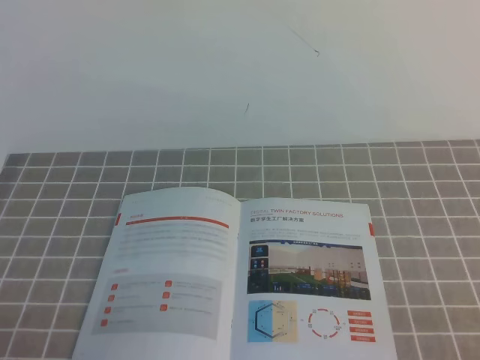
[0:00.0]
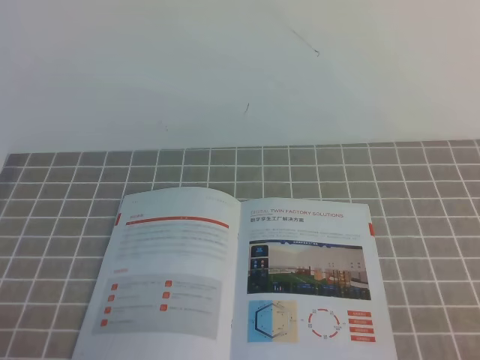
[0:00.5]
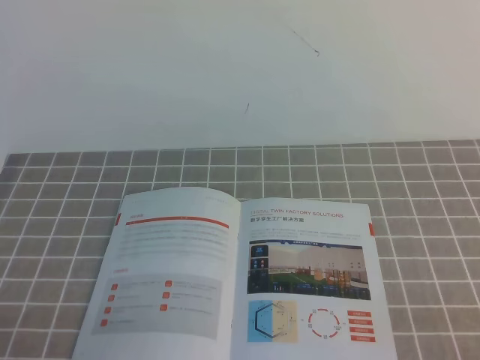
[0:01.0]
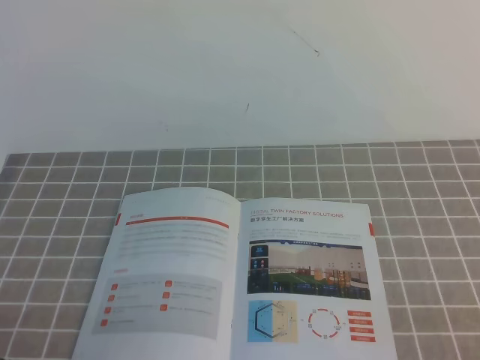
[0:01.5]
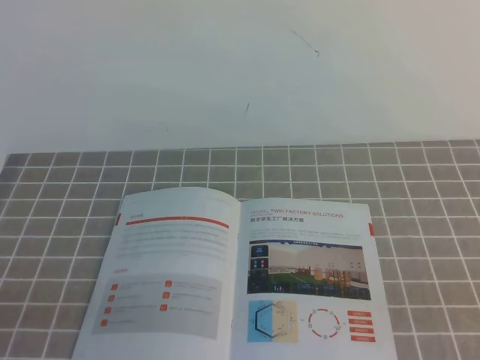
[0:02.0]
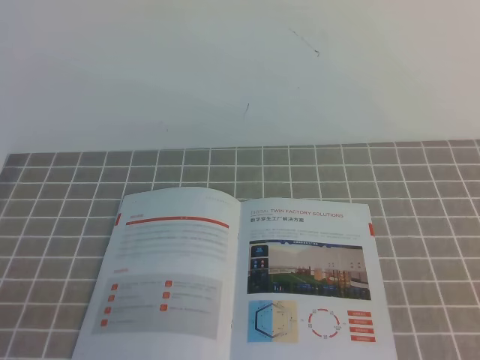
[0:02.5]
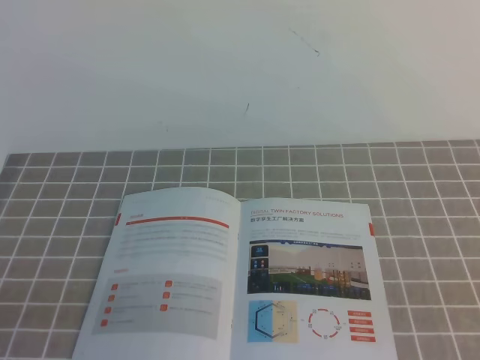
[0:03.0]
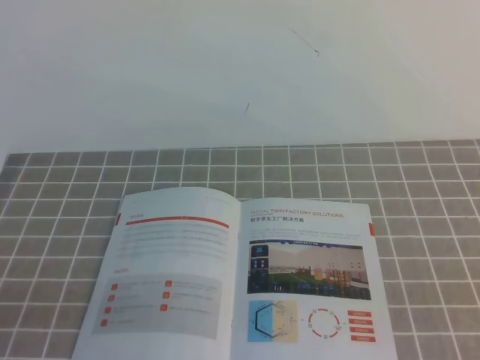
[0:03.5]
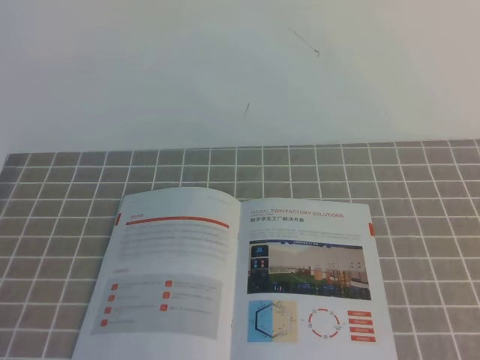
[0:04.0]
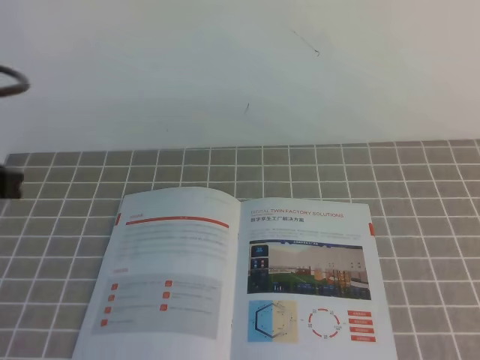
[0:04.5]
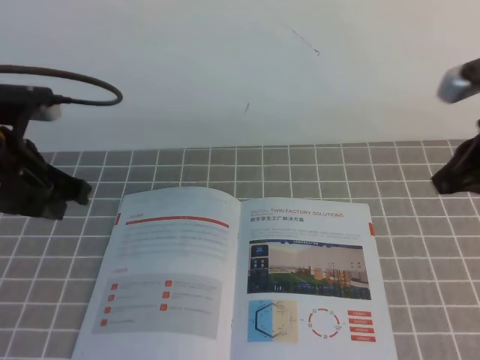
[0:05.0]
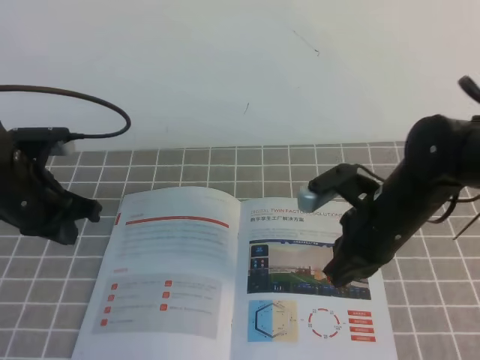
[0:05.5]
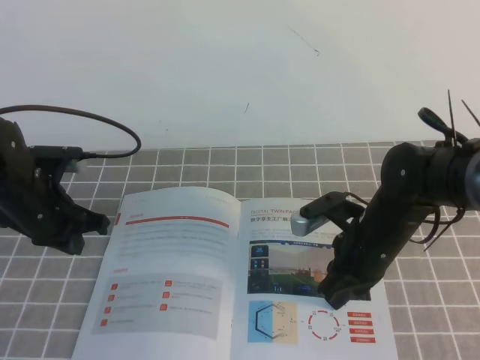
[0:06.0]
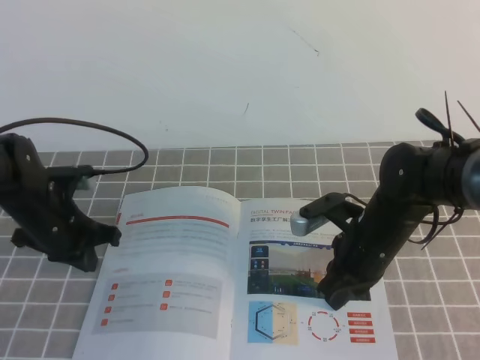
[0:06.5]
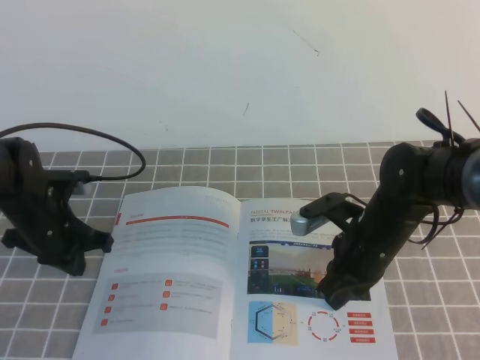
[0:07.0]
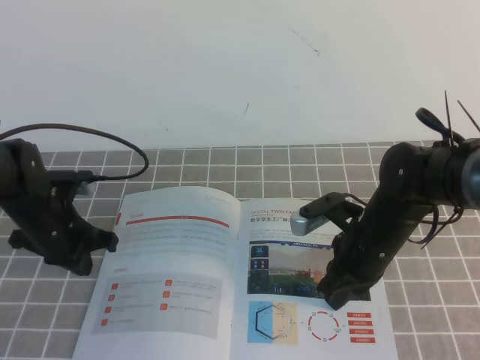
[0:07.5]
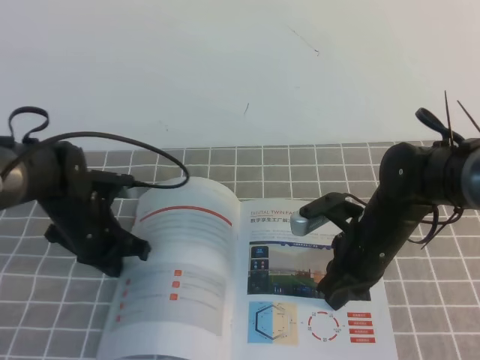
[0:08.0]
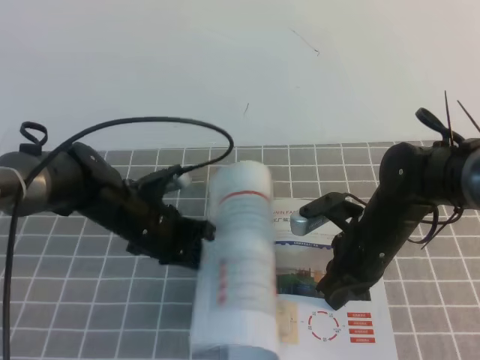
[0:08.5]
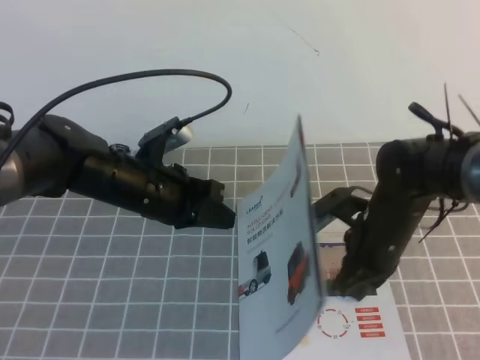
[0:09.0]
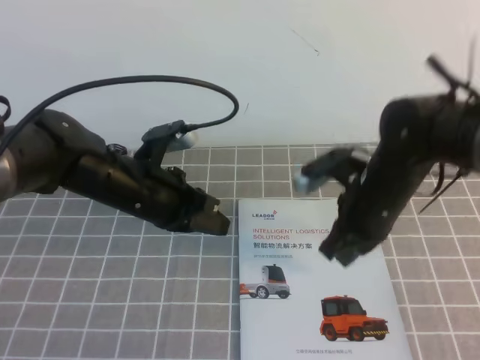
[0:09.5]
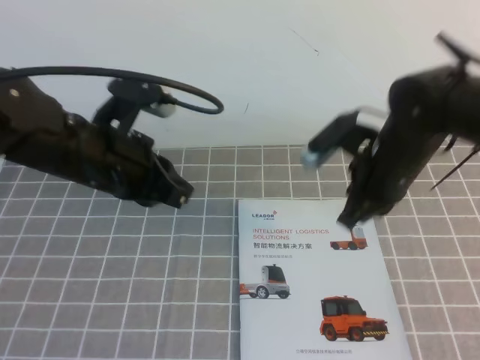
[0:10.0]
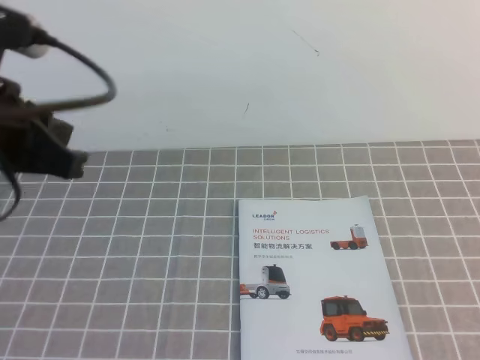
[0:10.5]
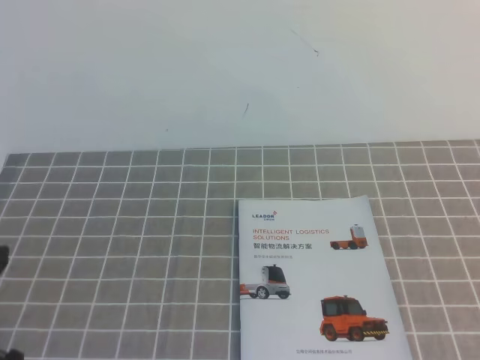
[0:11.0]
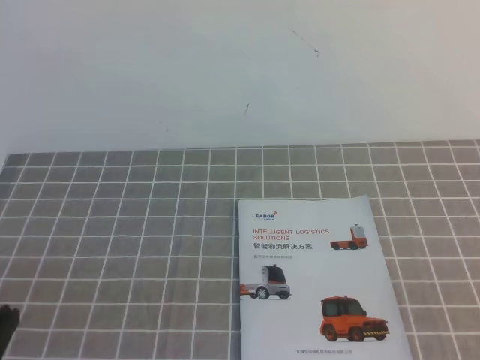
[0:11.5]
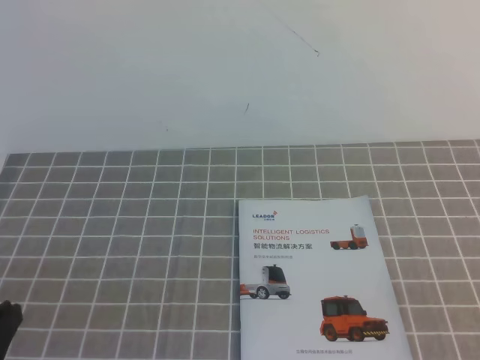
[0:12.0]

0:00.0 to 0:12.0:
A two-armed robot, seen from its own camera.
Task of the whole recording: on the grey tablecloth, hold the book with one hand and close it with the other.
0:04.0 to 0:06.0: The left gripper heads forward and downward, covering approximately 35 cm, while the right gripper goes about 40 cm forward, downward and to the left.
0:06.0 to 0:08.0: The left gripper shifts by some 5 cm.
0:08.0 to 0:10.0: The right gripper shifts some 10 cm upward; the left gripper travels upward by approximately 15 cm.
0:10.0 to 0:12.0: The left gripper travels backward by about 25 cm. The right gripper goes roughly 40 cm backward and to the right.

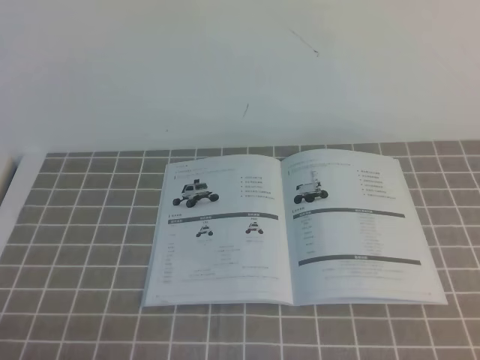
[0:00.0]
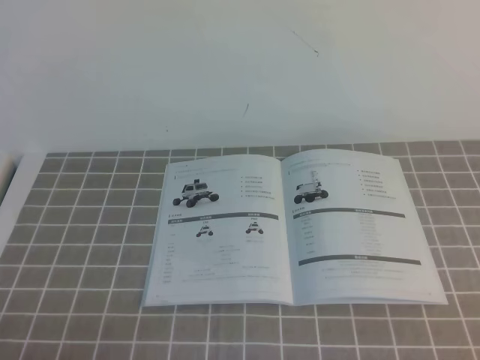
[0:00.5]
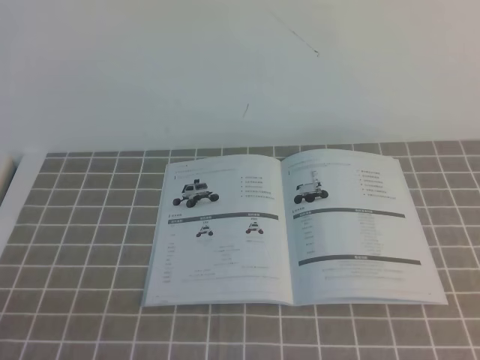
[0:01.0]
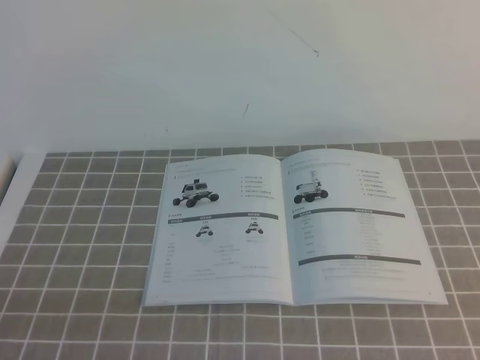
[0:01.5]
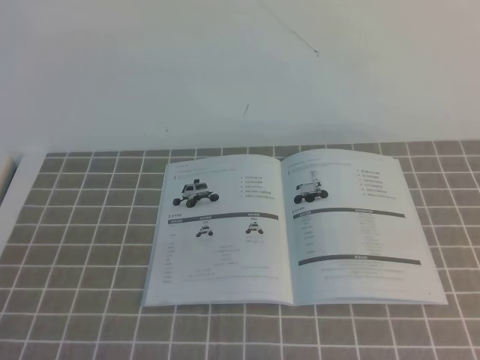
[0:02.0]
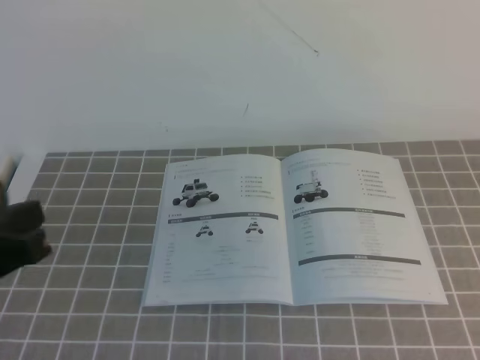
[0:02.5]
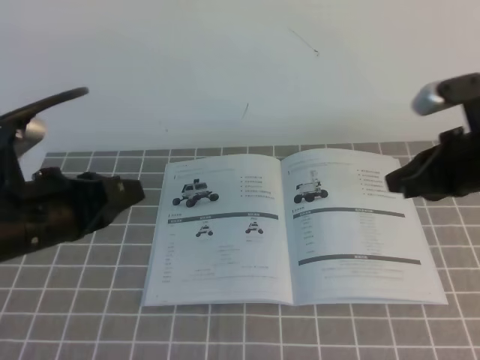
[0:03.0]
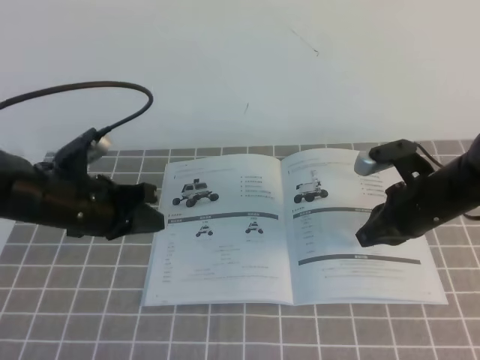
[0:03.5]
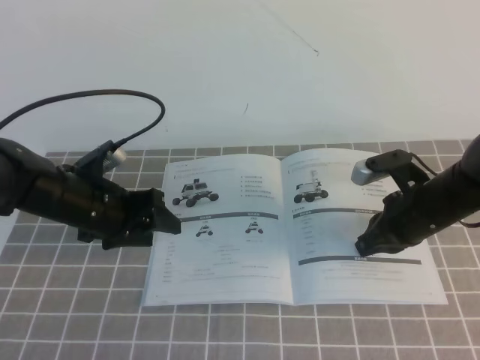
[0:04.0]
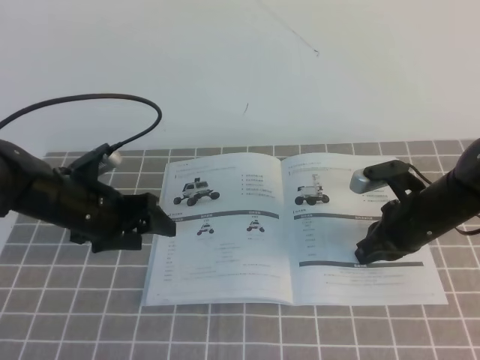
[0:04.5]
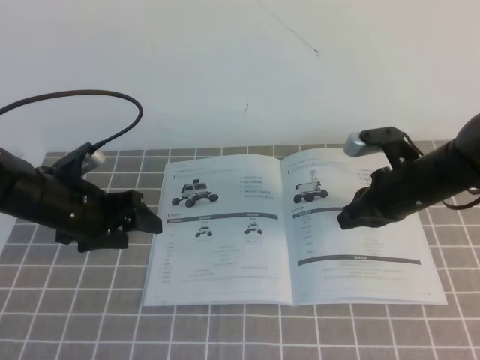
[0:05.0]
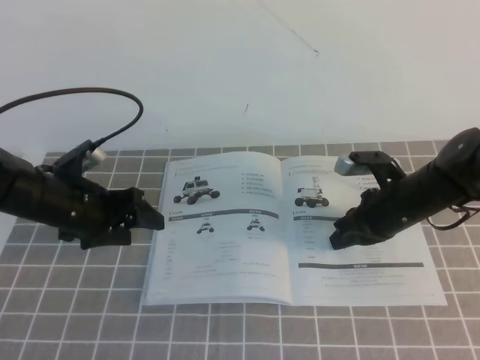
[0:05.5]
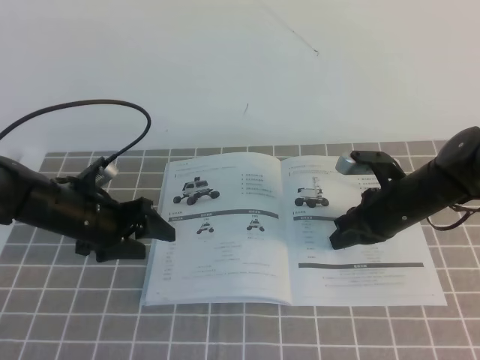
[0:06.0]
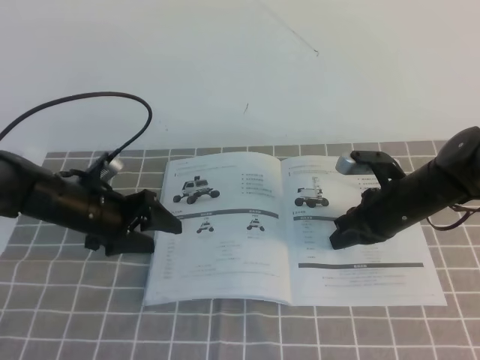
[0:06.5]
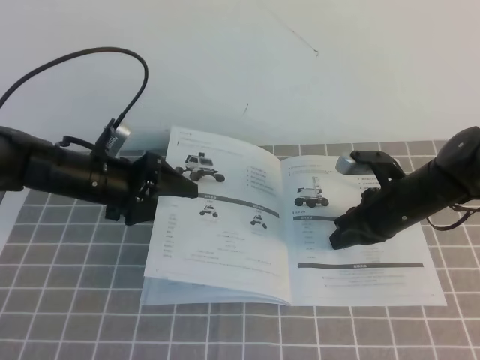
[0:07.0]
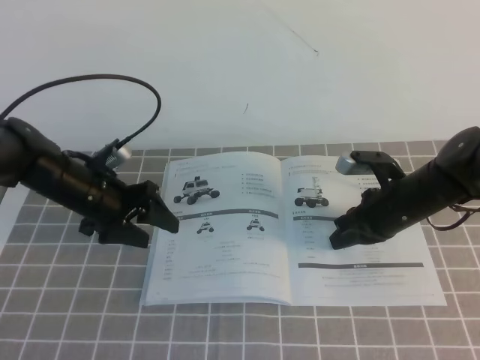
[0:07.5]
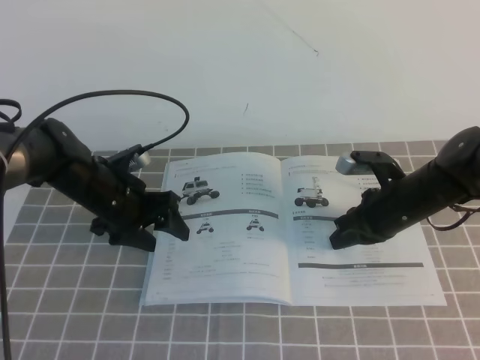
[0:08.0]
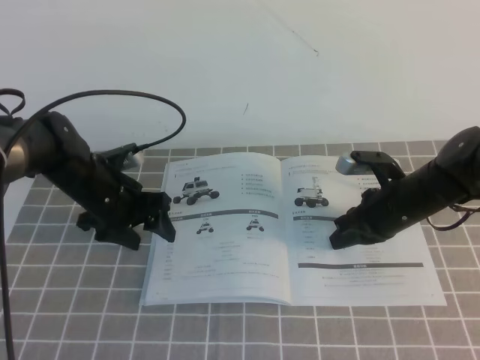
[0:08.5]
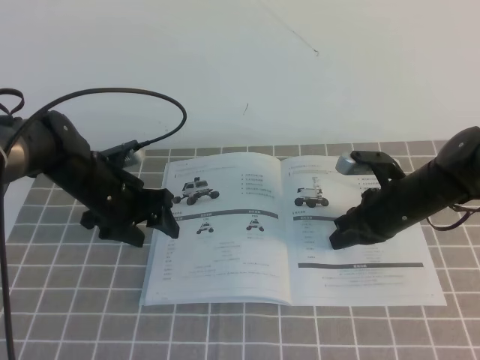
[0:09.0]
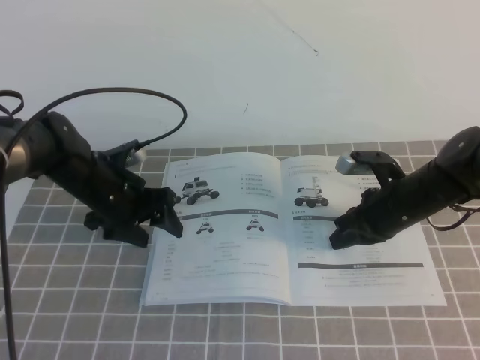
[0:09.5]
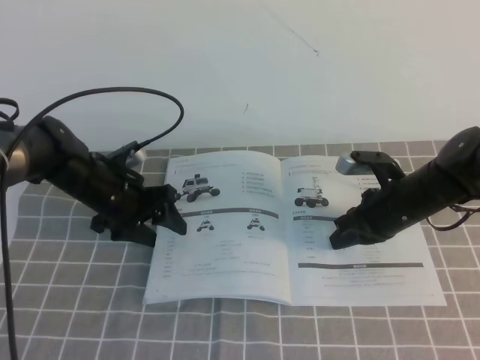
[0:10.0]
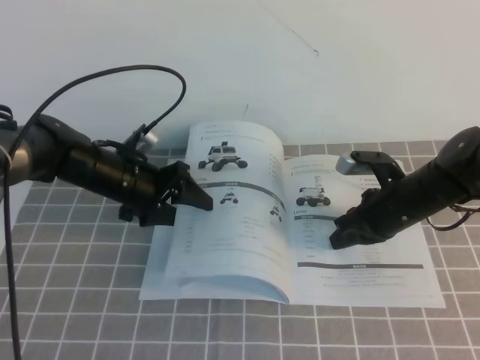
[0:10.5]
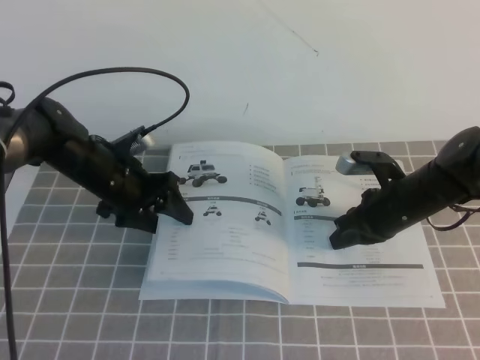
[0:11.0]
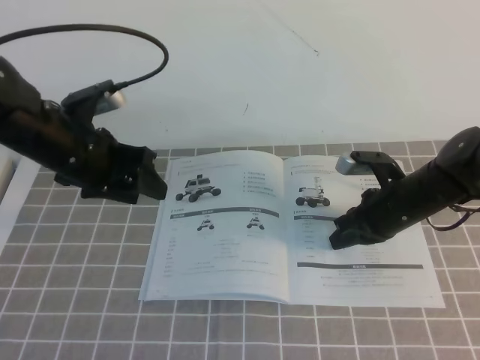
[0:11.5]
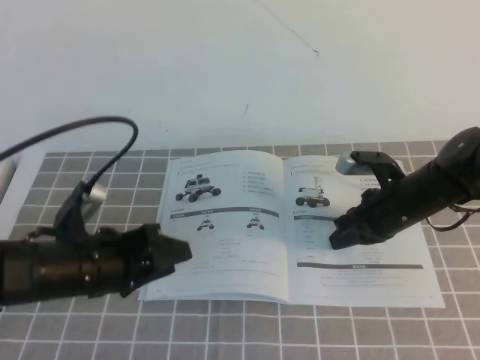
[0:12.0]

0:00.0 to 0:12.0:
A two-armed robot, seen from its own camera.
Task of the whole recording: on the grey tablecloth, hold the book with one hand and close it with the other.
0:02.0 to 0:04.0: Both grippers move forward and downward, about 35 cm. The left gripper opens up.
0:04.0 to 0:06.0: The left gripper opens.
0:06.0 to 0:10.0: There are only small adjustments of the grippers.
0:10.0 to 0:12.0: The left gripper goes some 15 cm backward.

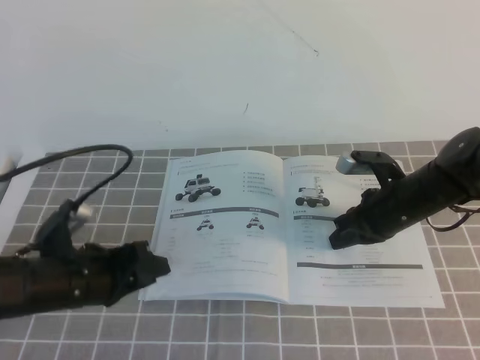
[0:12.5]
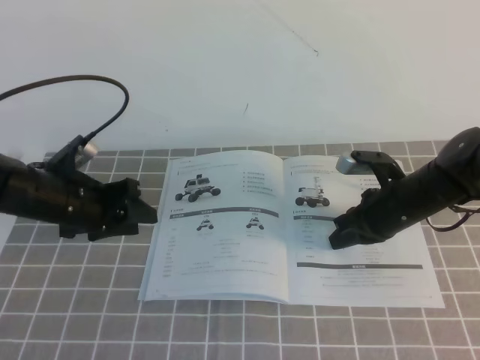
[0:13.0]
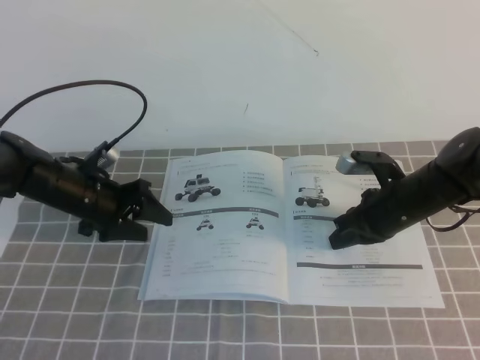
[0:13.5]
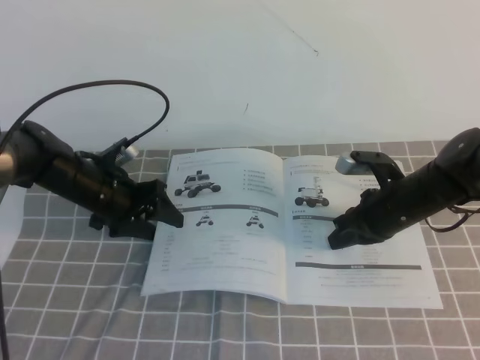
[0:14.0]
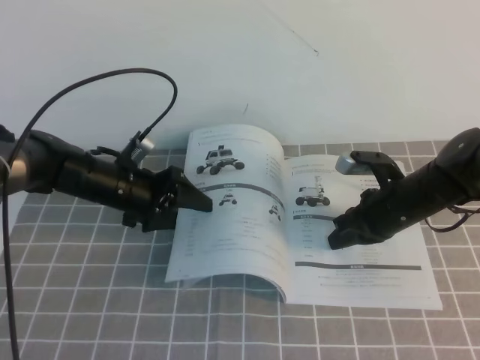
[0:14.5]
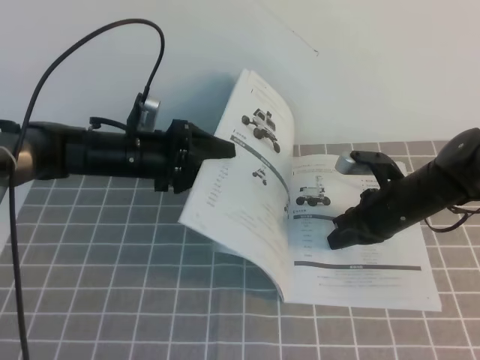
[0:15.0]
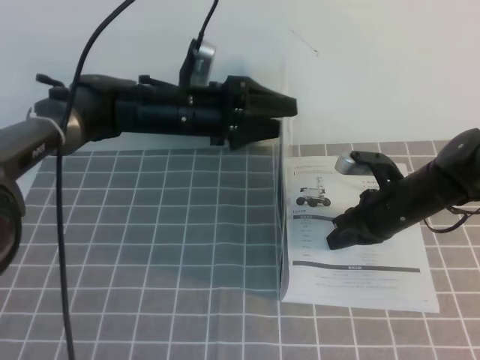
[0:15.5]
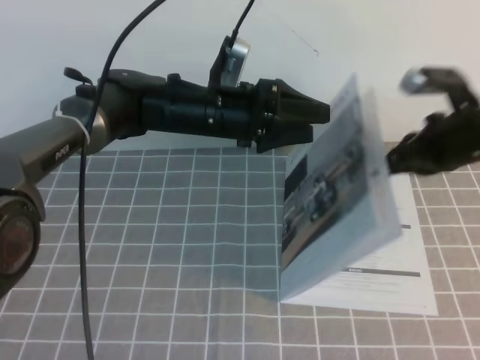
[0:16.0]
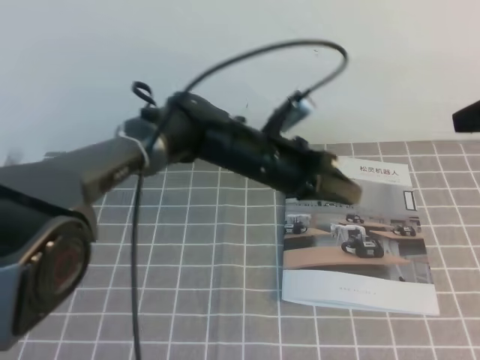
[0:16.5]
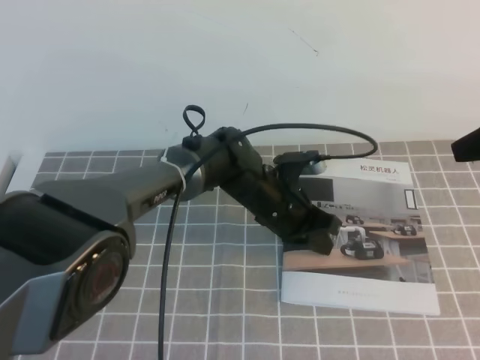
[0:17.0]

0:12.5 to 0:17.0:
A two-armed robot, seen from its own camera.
Task of the whole recording: on the grey tablecloth, hold the book with one hand and close it with the other.
0:12.5 to 0:14.5: The left gripper shifts approximately 15 cm forward, and opens its fingers.
0:14.5 to 0:17.0: The right gripper goes roughly 25 cm upward and to the right. The left gripper heads to the right, covering approximately 20 cm, and closes.
